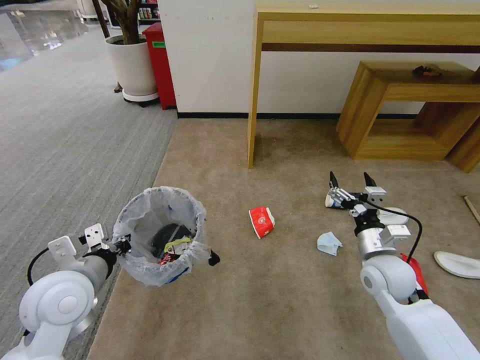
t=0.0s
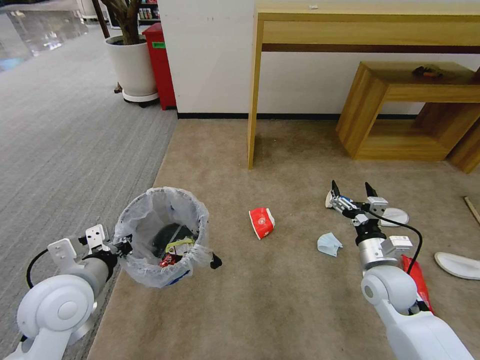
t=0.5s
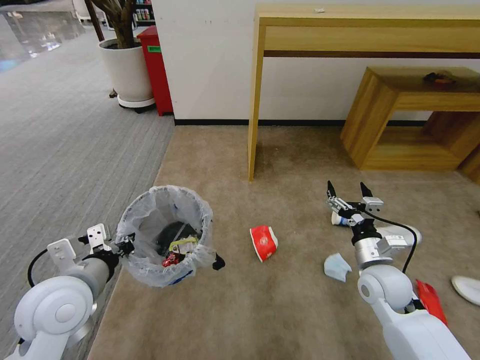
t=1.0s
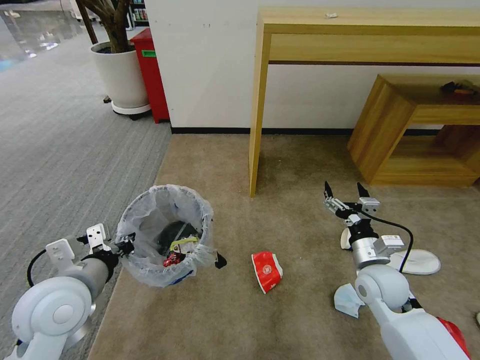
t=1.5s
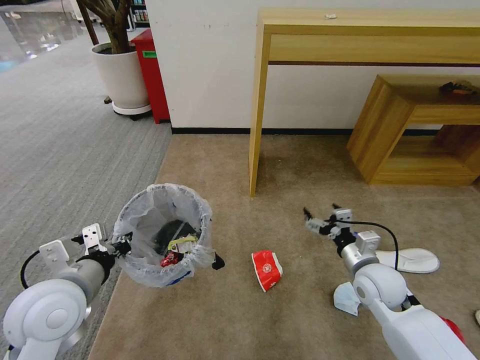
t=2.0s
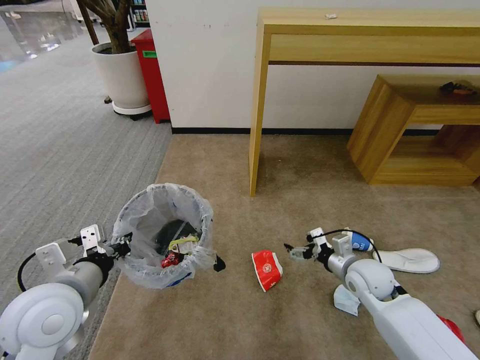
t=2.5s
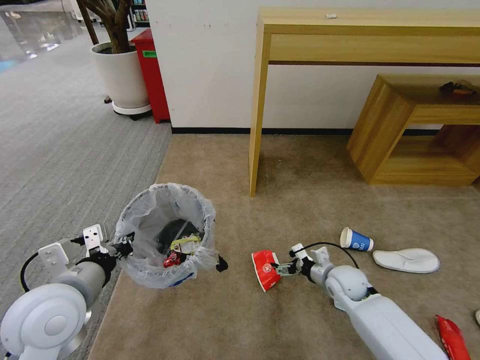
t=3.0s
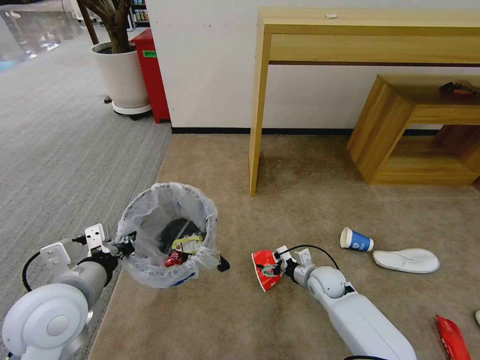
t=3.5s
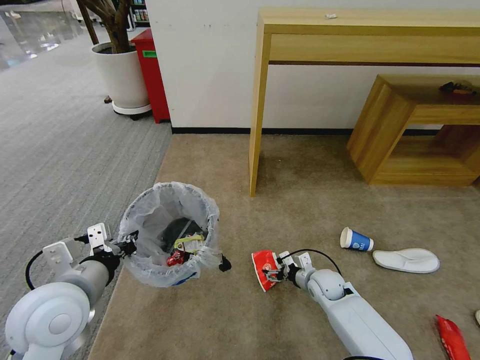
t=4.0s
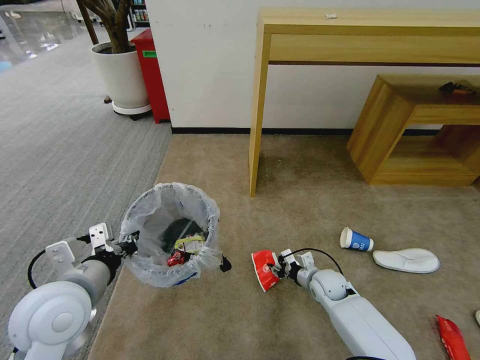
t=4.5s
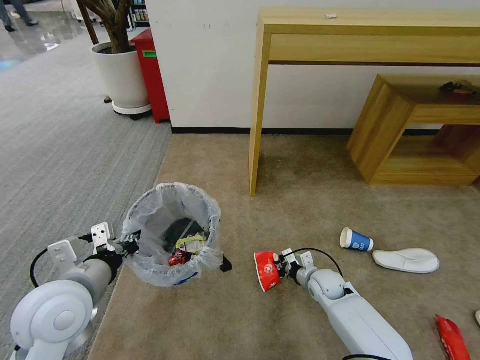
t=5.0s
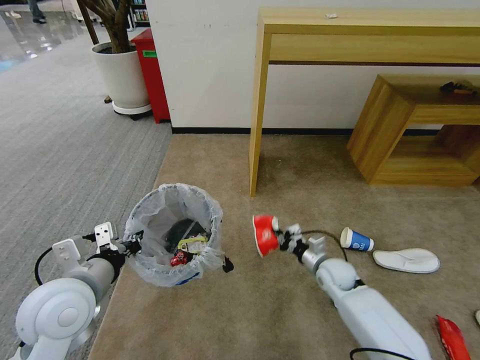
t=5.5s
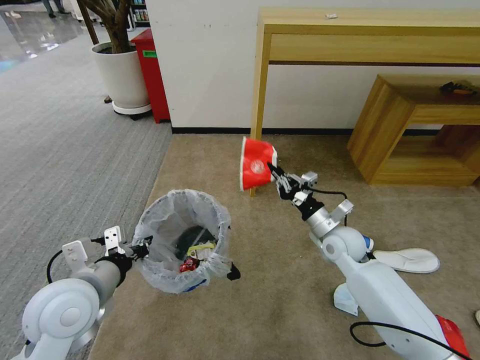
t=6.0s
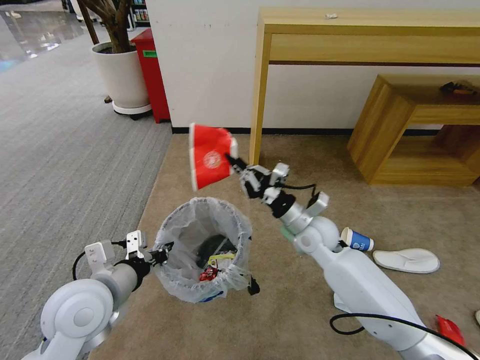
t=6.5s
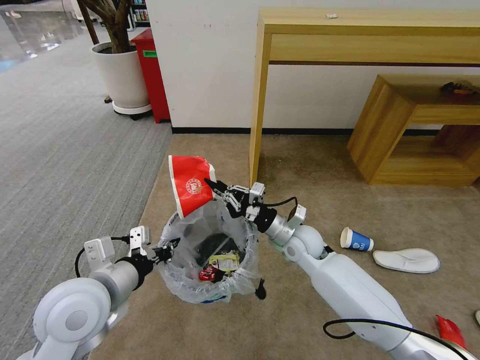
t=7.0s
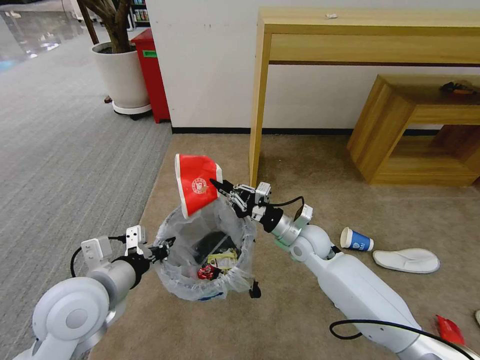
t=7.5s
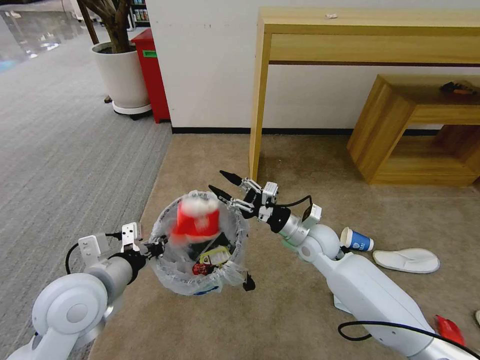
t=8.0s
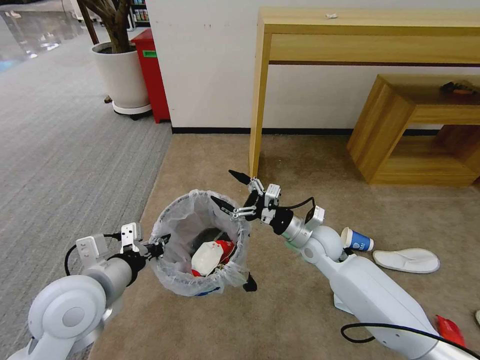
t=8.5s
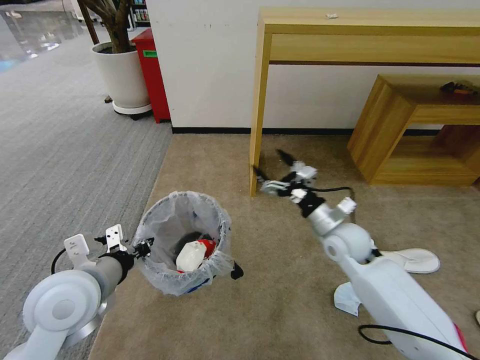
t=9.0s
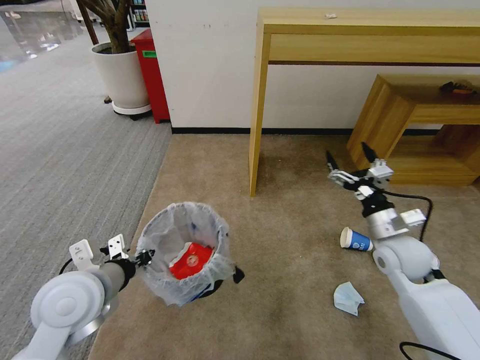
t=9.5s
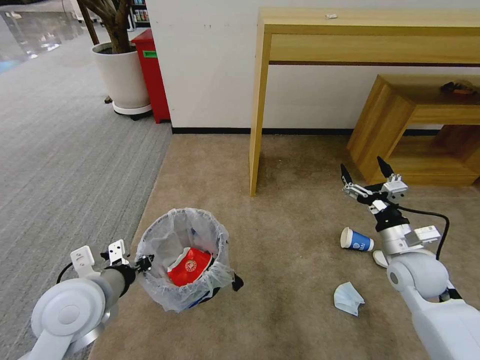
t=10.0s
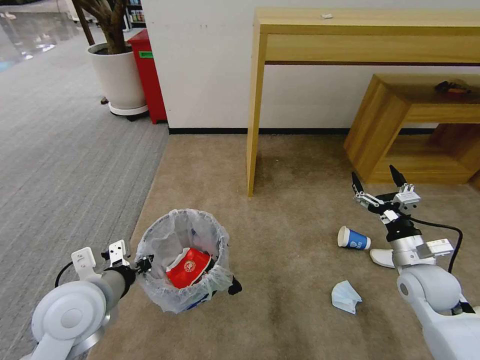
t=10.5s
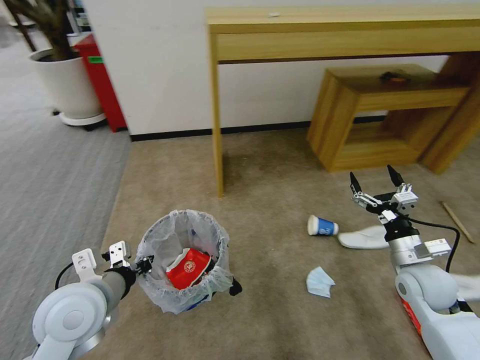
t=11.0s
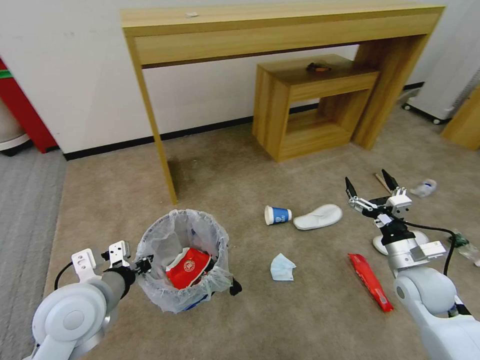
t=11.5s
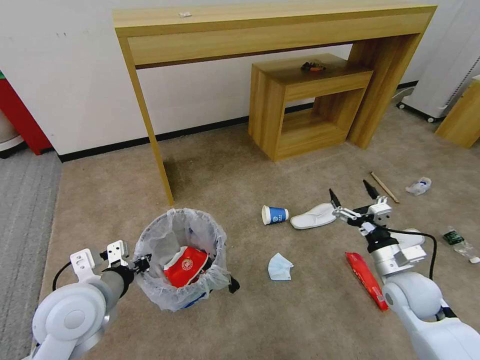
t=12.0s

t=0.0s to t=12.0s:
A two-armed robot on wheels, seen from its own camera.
Task of the whole recording: Pick up the trash bin and place the garbage on the floor into it.
t=2.0s to t=4.0s: The right gripper heads downward, covering about 15 cm.
t=4.0s to t=6.0s: The right gripper heads upward, covering approximately 15 cm, and closes its fingers.
t=6.0s to t=8.0s: The right gripper travels to the left by roughly 5 cm, and opens.
t=8.0s to t=10.0s: The right gripper shifts some 20 cm to the right and backward, and opens its fingers.

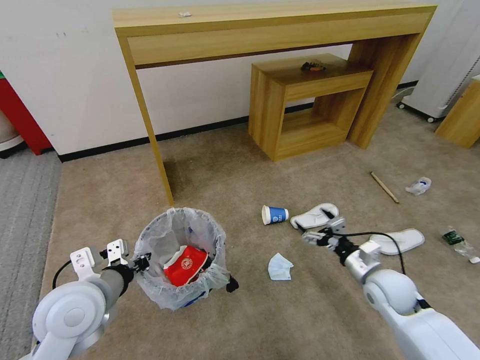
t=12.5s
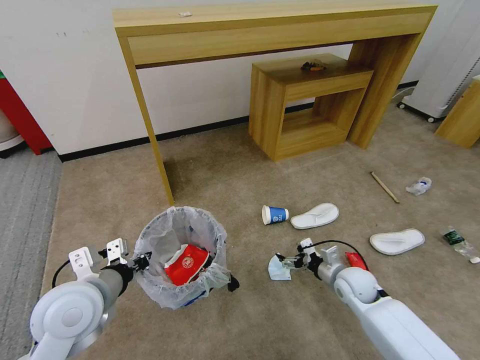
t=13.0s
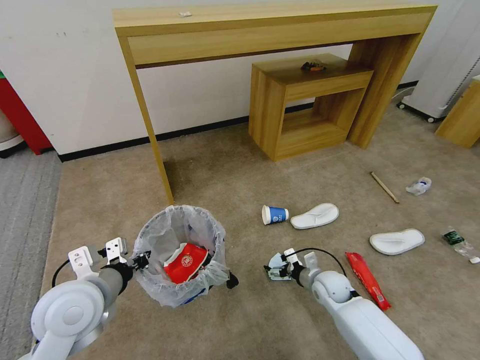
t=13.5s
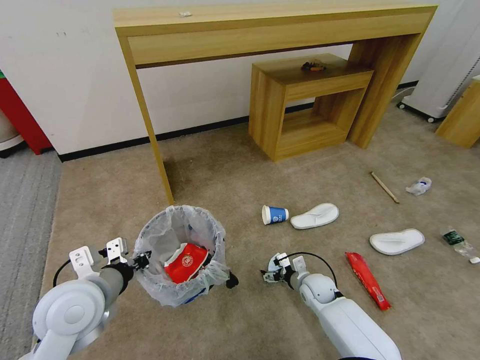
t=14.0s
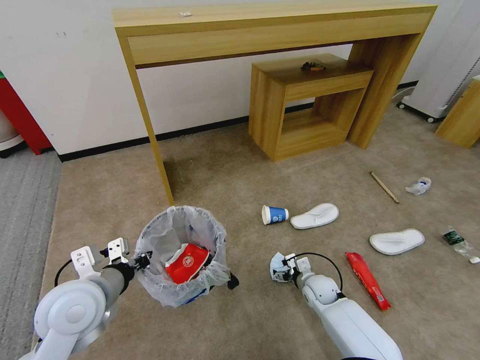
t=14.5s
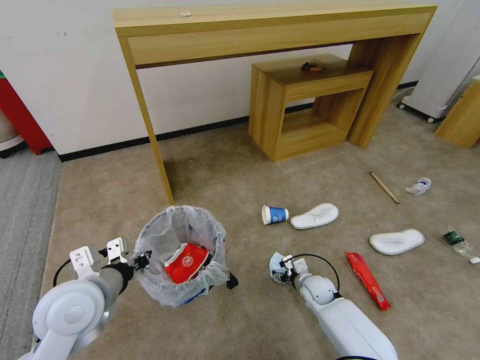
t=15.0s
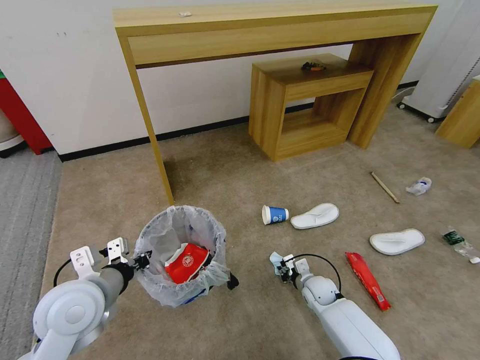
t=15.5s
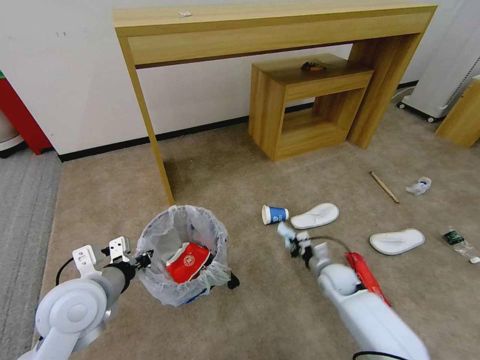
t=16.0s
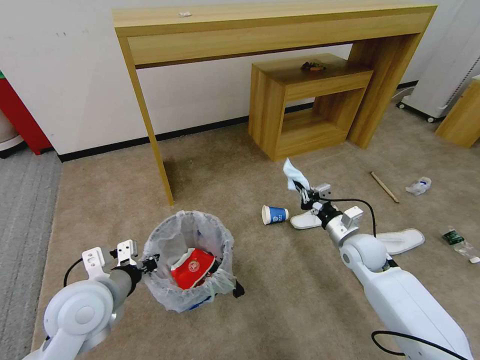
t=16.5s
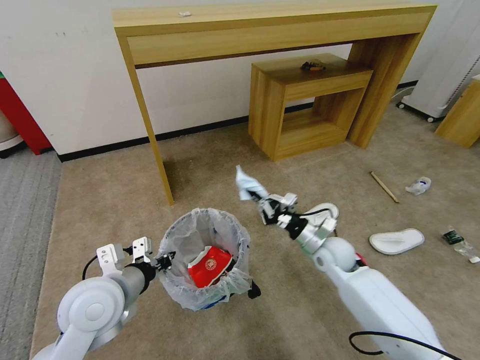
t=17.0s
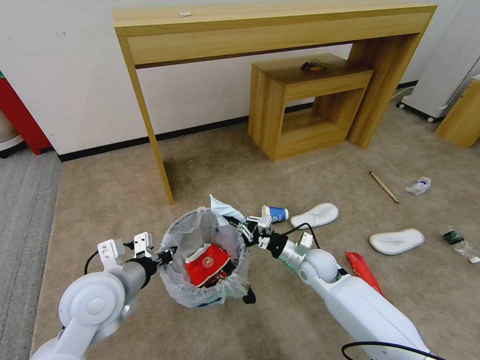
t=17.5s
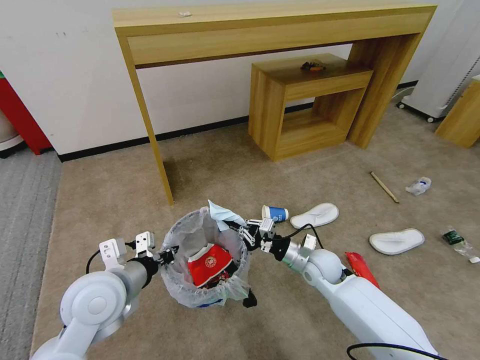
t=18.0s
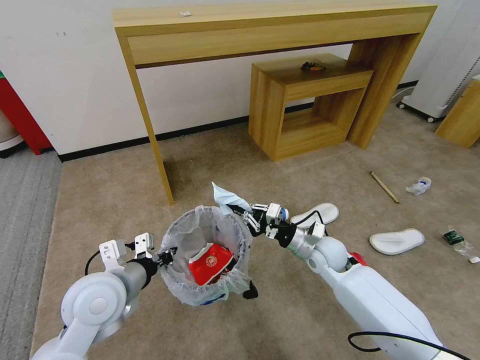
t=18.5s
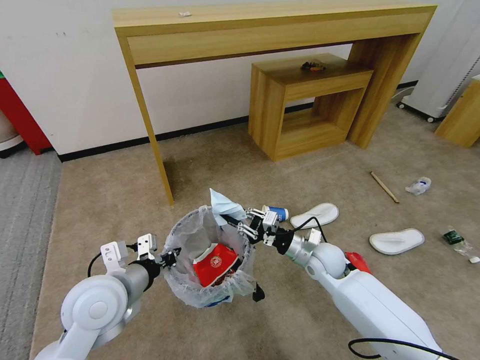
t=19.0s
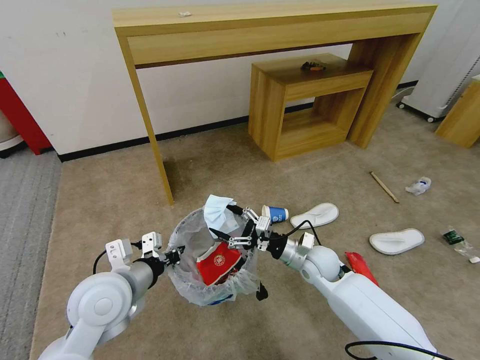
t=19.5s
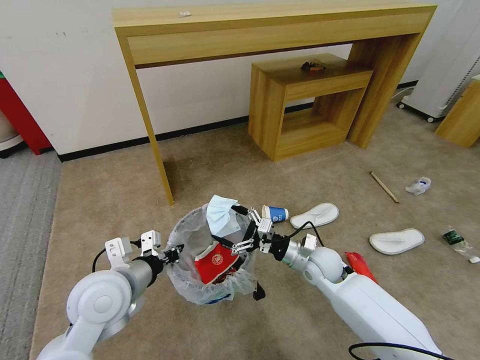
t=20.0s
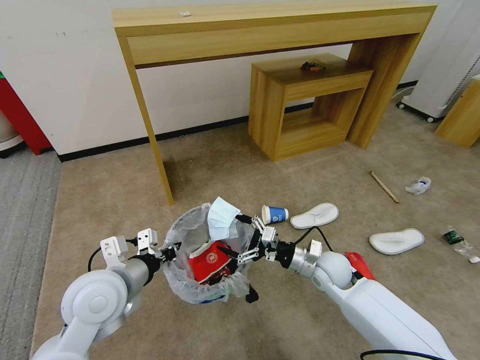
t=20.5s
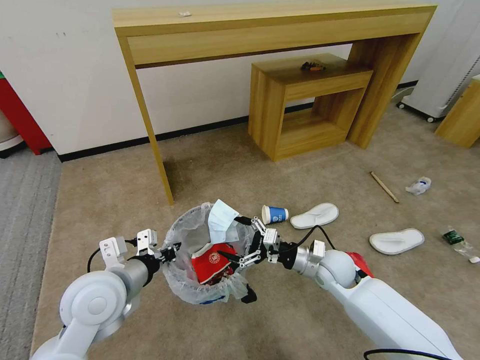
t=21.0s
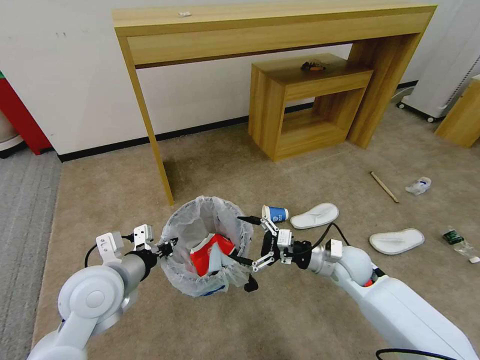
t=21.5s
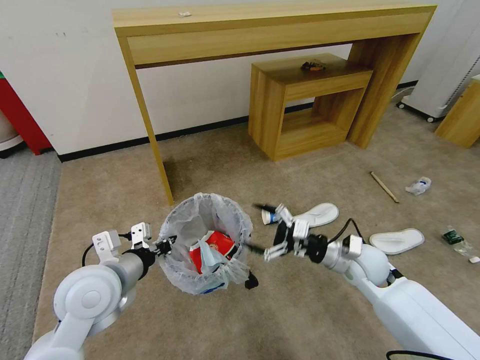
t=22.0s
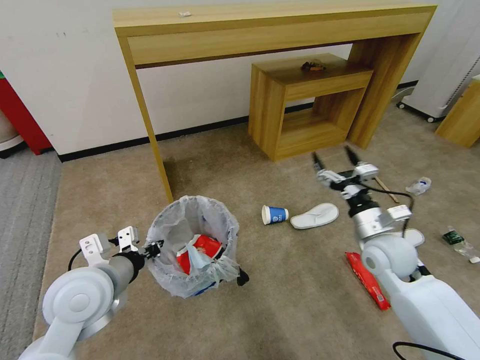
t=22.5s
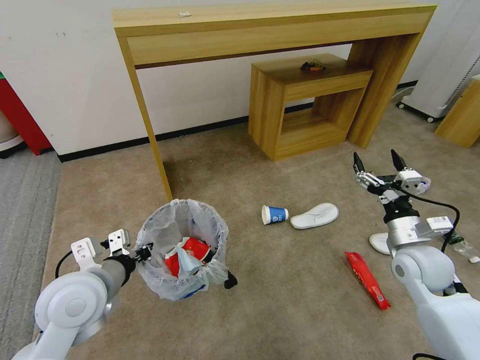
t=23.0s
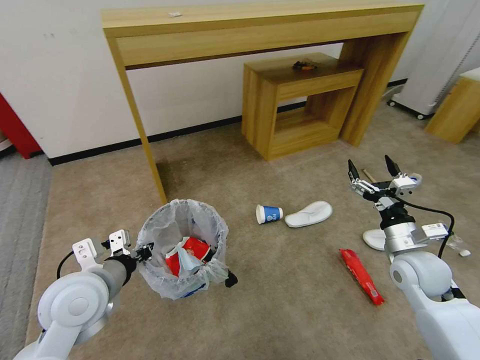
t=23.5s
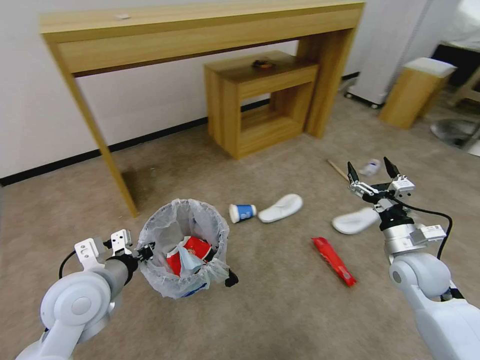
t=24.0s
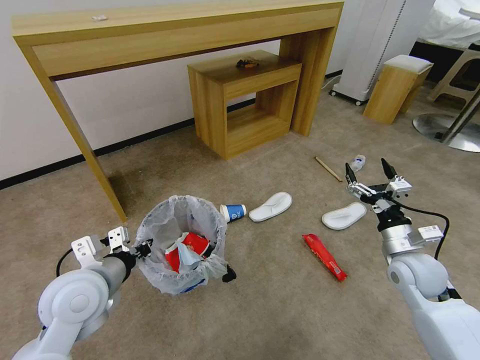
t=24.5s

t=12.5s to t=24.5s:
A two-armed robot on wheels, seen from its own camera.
Task of the whole recording: Pick up the trash bin and place the garbage on the floor into it.
t=12.5s to t=14.5s: The right gripper shifts roughly 20 cm downward and to the left.
t=14.5s to t=16.5s: The right gripper moves upward, about 15 cm, and closes up.
t=16.5s to t=18.5s: The right gripper moves to the left, about 10 cm.
t=18.5s to t=20.5s: The right gripper opens its fingers.
t=20.5s to t=22.5s: The right gripper goes some 15 cm upward and to the right.
t=22.5s to t=24.5s: The right gripper travels to the right by approximately 5 cm.

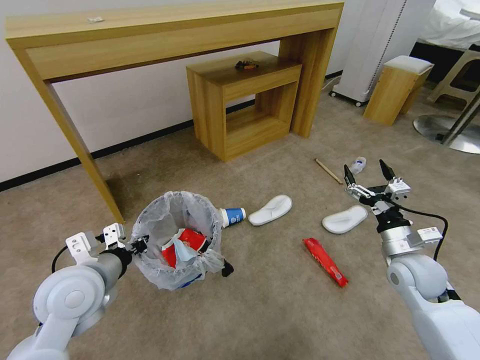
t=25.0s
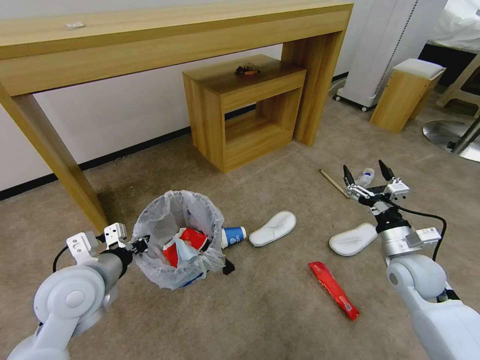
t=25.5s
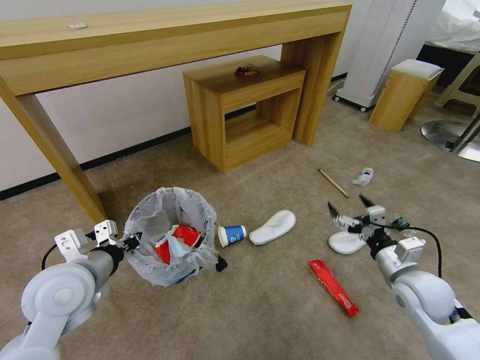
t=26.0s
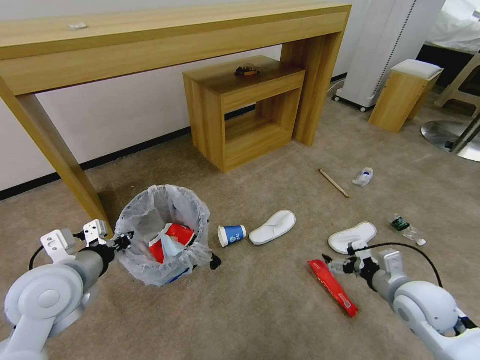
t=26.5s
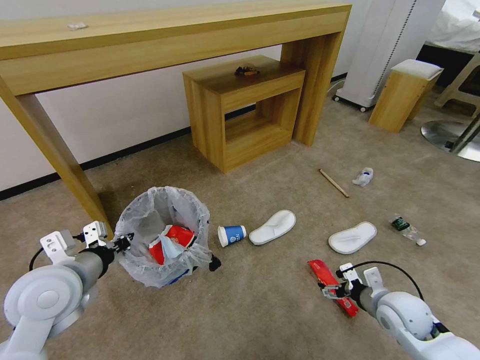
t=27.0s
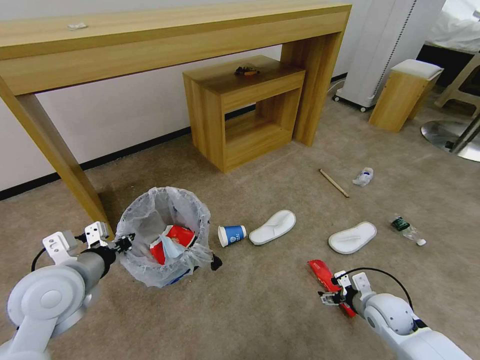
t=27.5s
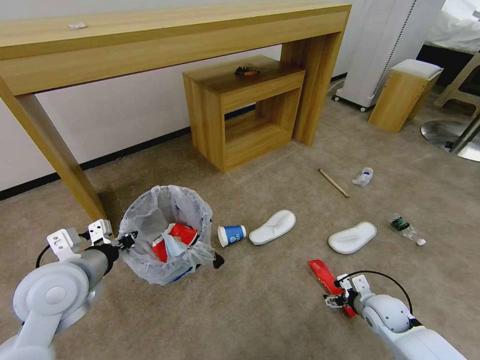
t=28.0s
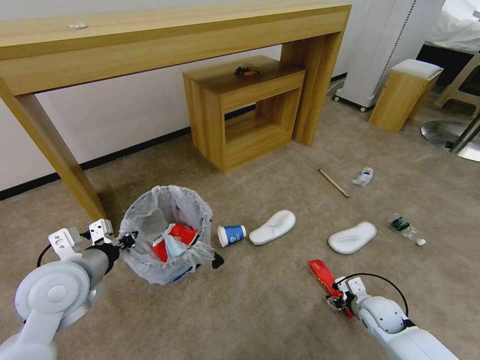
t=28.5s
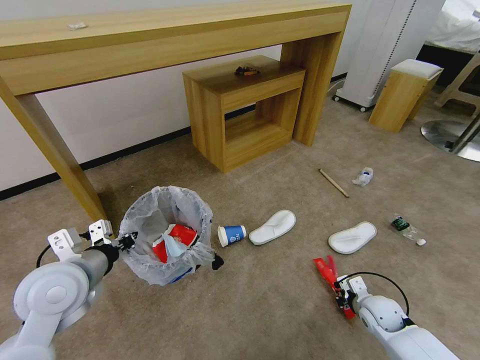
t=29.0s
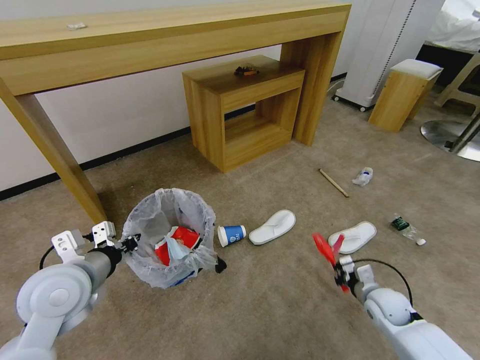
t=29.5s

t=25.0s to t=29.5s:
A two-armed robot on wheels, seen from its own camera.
Task of the whole recording: Pick up the trash bin and place the garbage on the floor into it.
t=25.0s to t=27.0s: The right gripper heads downward and backward, covering roughly 10 cm.
t=27.0s to t=29.5s: The right gripper heads downward, covering approximately 10 cm, and closes up.
